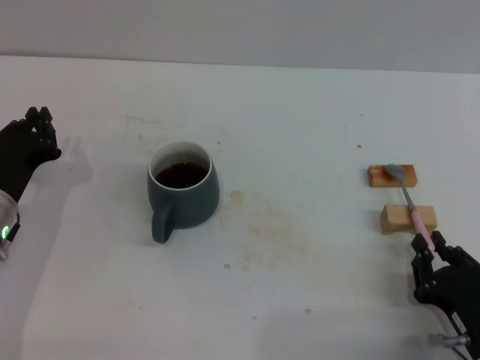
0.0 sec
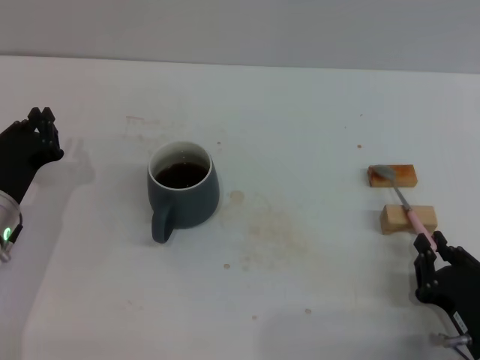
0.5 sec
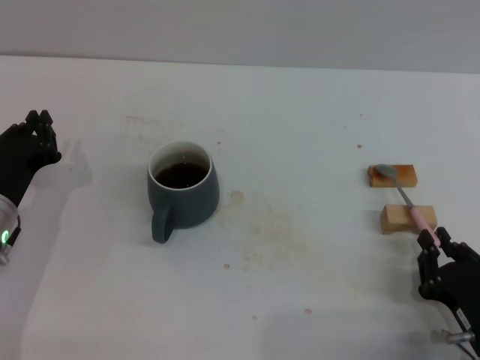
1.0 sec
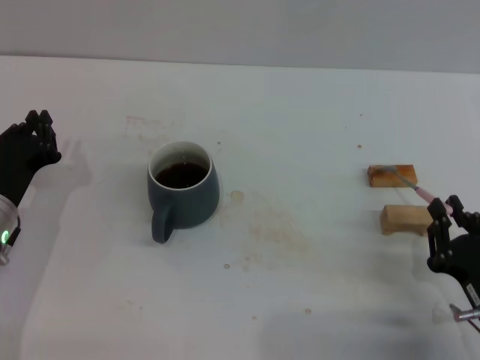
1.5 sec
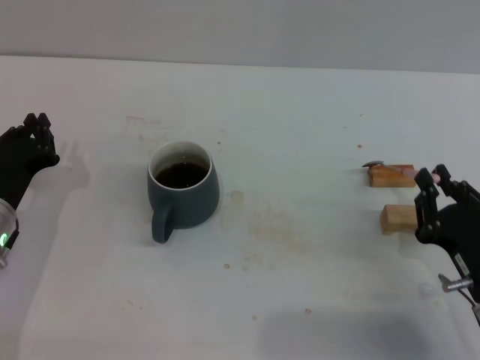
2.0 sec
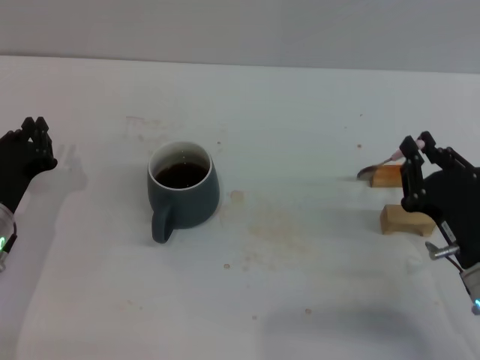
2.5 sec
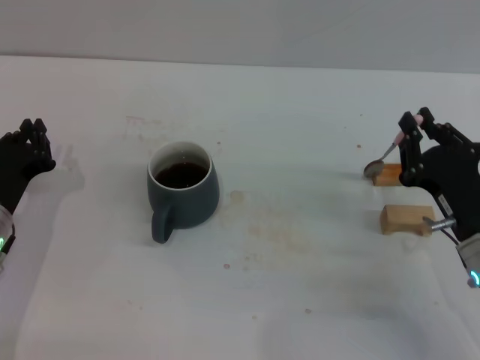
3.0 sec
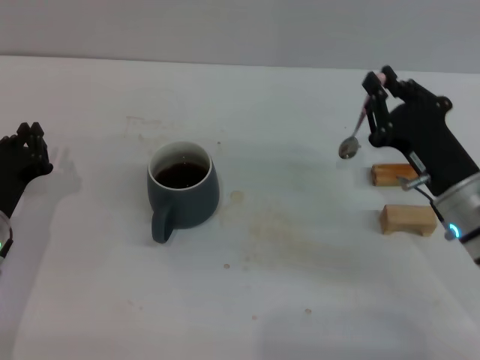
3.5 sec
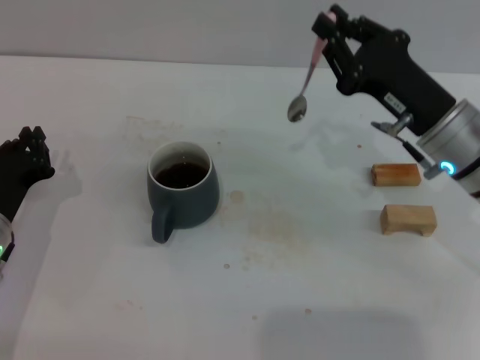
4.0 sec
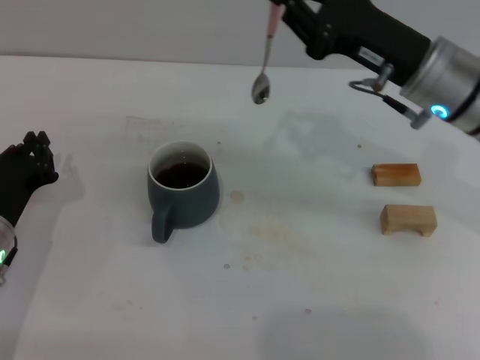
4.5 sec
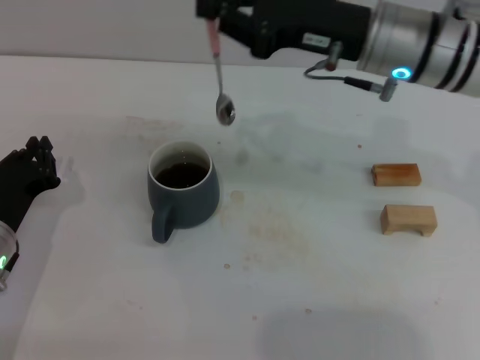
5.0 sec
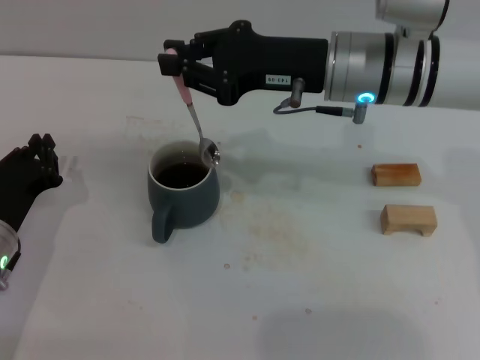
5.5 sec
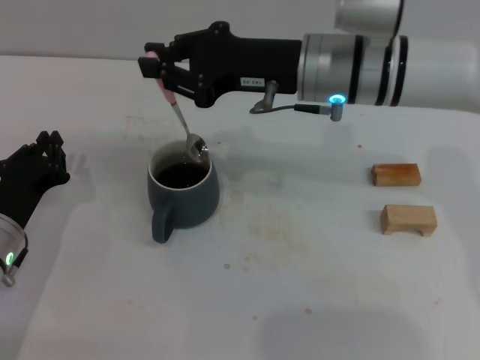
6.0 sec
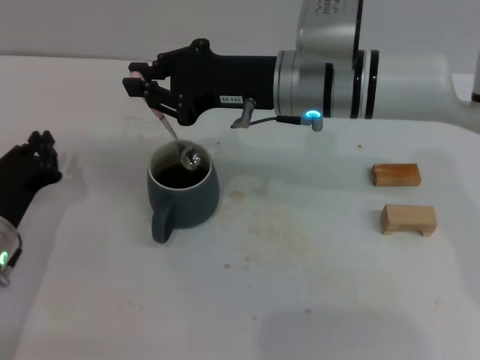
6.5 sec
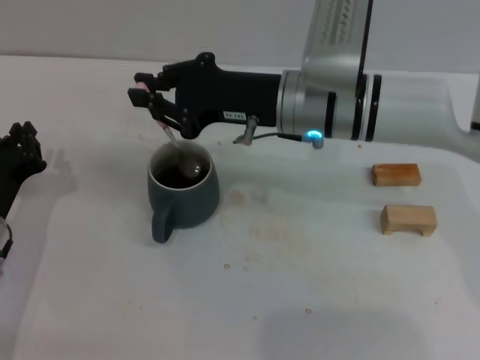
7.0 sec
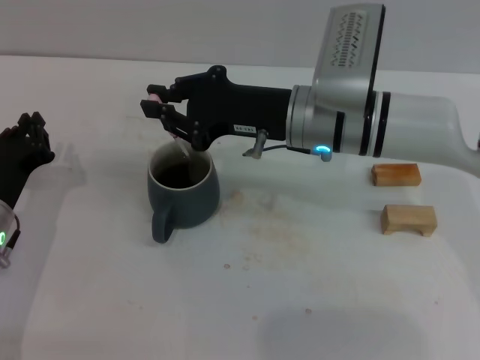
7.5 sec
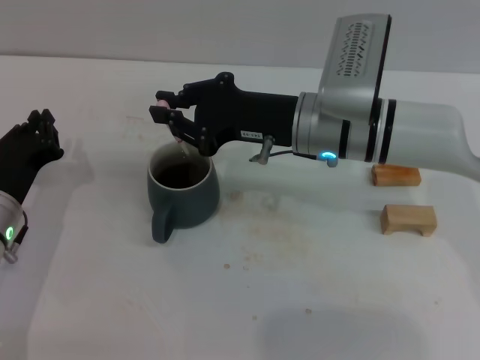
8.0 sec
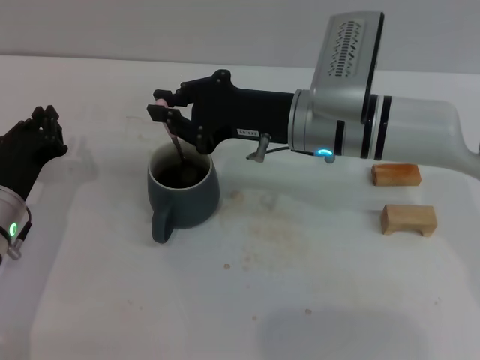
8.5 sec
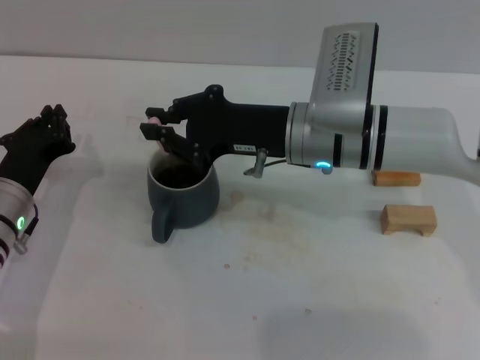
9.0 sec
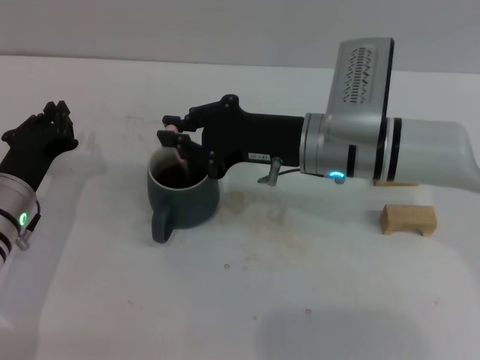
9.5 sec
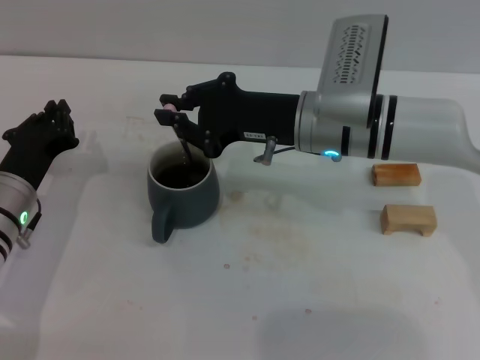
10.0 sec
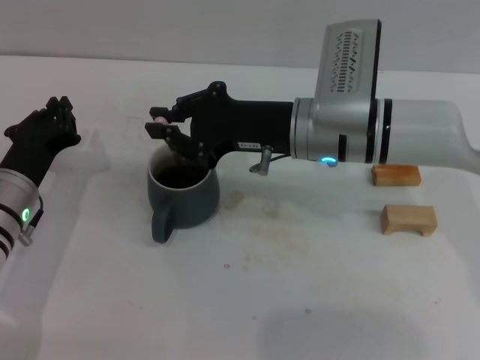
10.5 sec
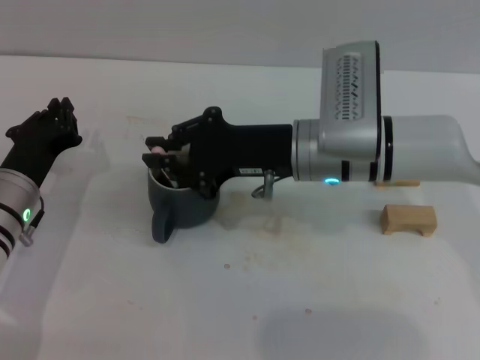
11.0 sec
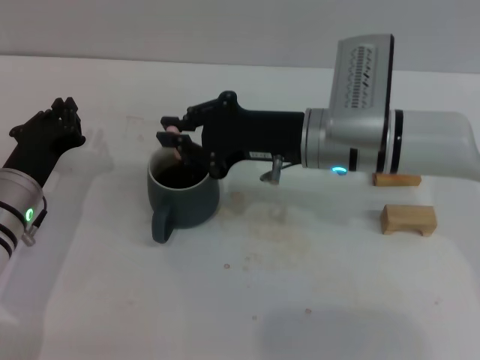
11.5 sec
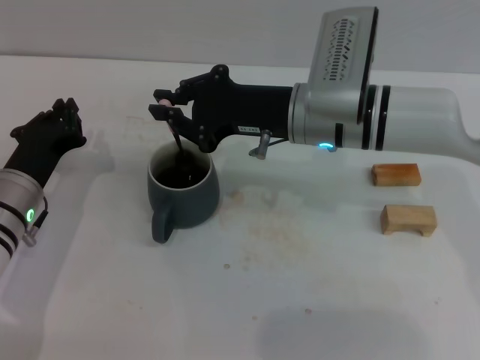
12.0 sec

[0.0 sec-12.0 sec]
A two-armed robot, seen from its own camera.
Task of the whole recording: Move the grey cup to the center, lift the pink spoon, stir it three times in the cup, and put the spoon into the cup.
Step, 0.0 sec to 3.5 sec: Pick up the spoon with the right gripper.
0.0 sec to 2.0 sec: The right gripper ends up about 5 cm from where it was.
2.0 sec to 4.0 sec: The right gripper moves forward and upward, roughly 15 cm.
4.0 sec to 6.0 sec: The right gripper shifts some 15 cm to the left, upward and forward.
6.0 sec to 8.0 sec: The right gripper shifts by about 5 cm.
8.0 sec to 12.0 sec: The grippers make only small movements.

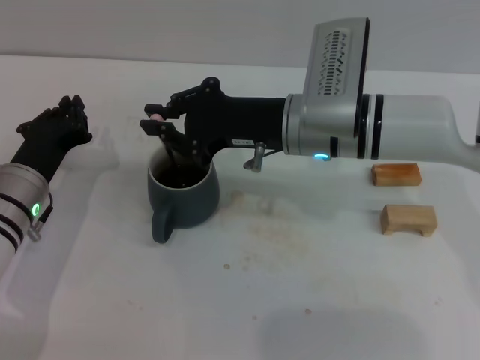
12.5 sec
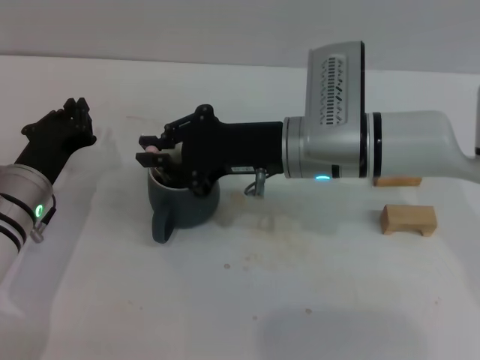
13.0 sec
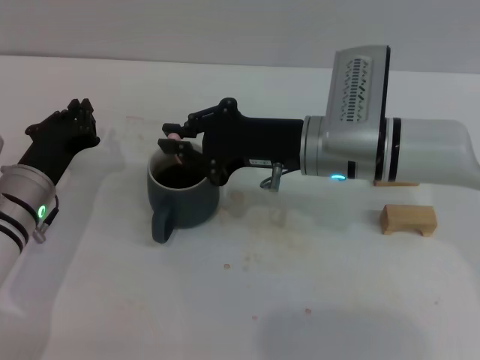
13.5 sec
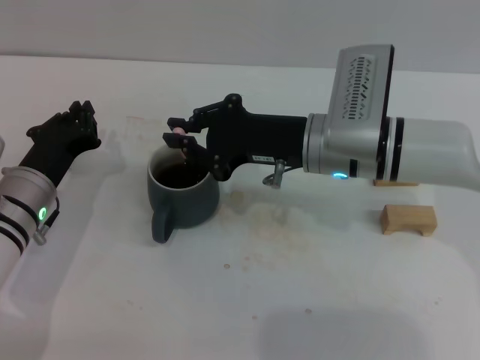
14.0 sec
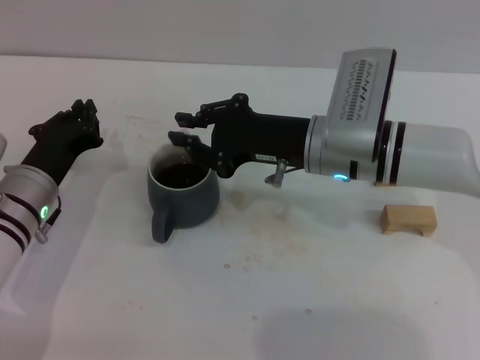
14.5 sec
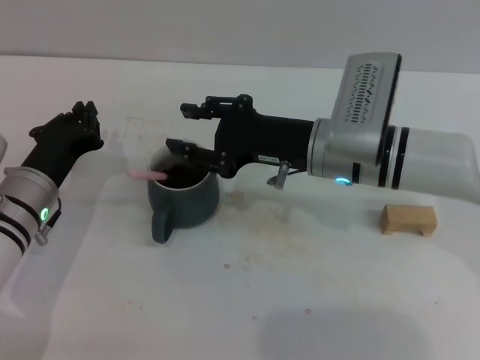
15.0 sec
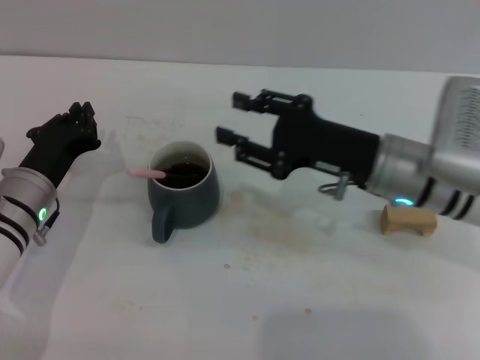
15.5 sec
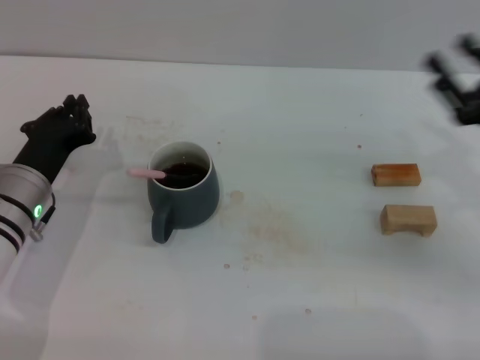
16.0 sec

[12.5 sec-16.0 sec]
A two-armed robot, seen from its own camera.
Task of the whole recording: Move the grey cup to the center, lift the pink spoon, stir it three times in the cup, and put the spoon into the cup.
Step, 12.5 sec to 14.5 sec: Stir the coffee in the cup with the right gripper.
12.5 sec to 14.5 sec: The grippers move only a little.
14.5 sec to 16.0 sec: The right gripper shifts about 20 cm to the right, and opens its fingers.

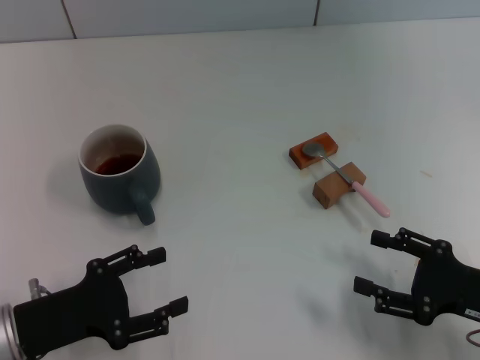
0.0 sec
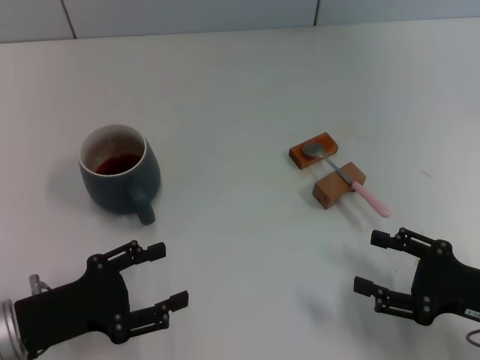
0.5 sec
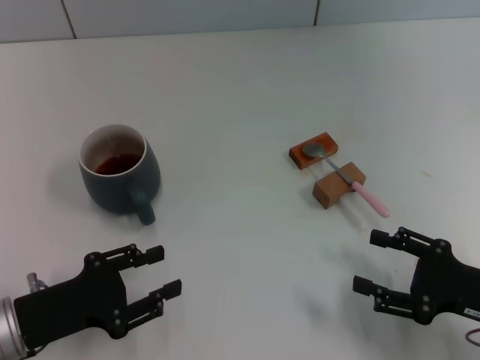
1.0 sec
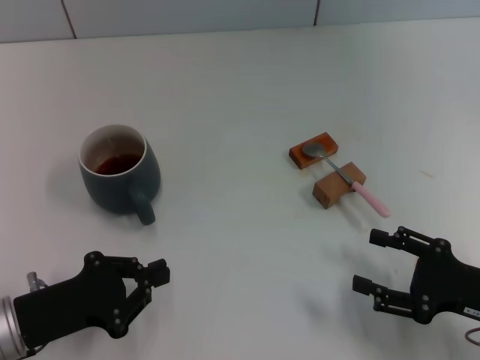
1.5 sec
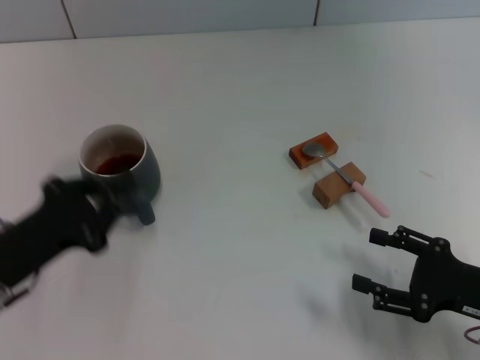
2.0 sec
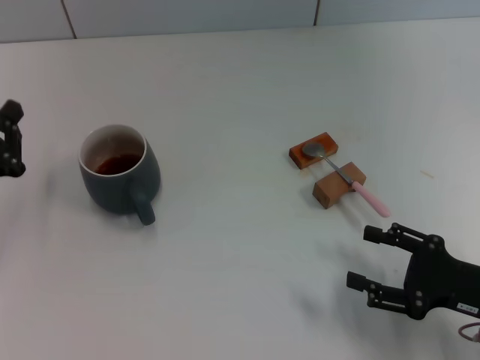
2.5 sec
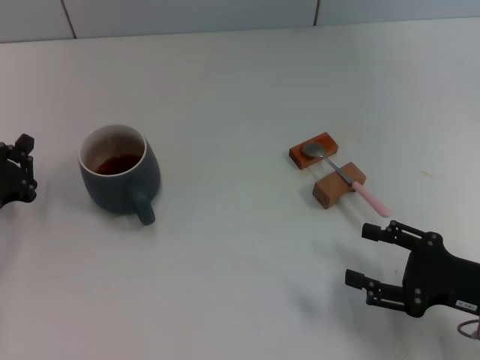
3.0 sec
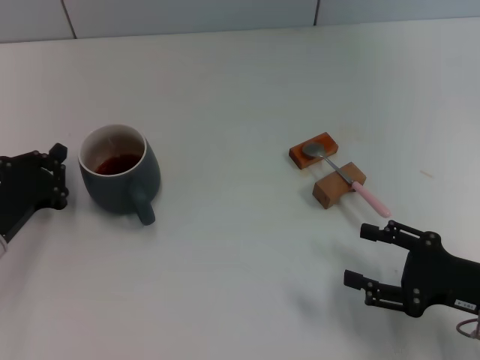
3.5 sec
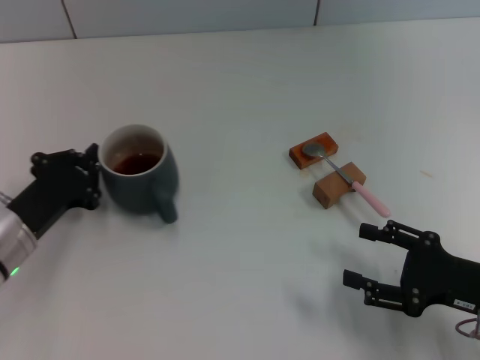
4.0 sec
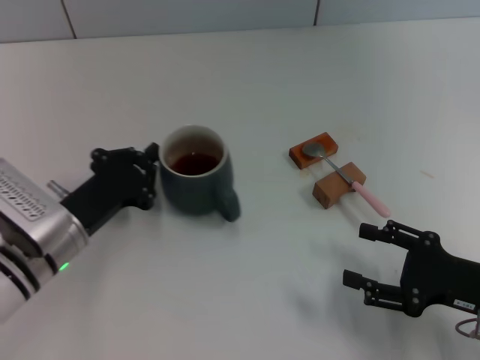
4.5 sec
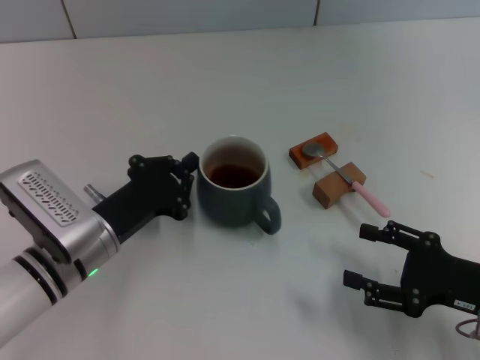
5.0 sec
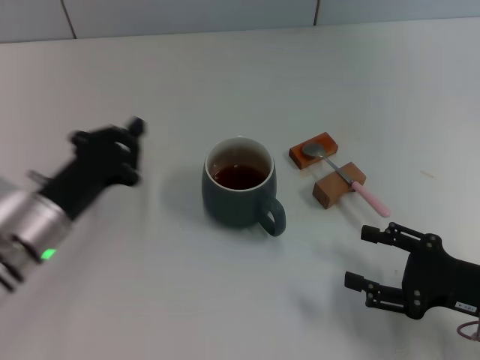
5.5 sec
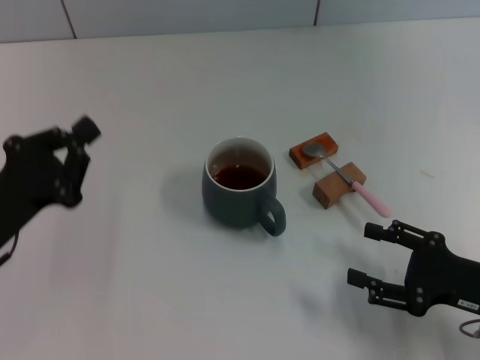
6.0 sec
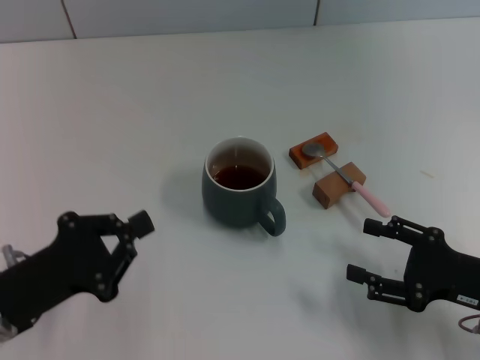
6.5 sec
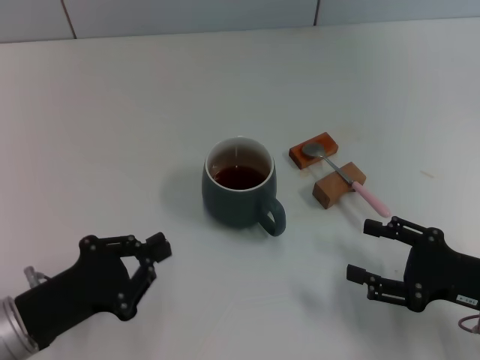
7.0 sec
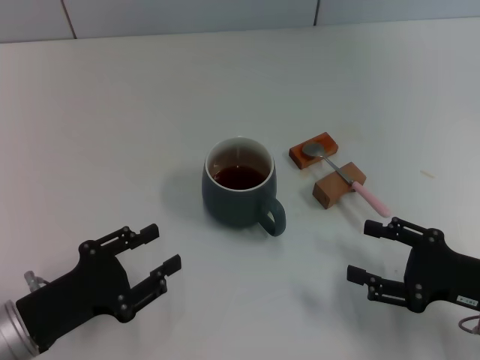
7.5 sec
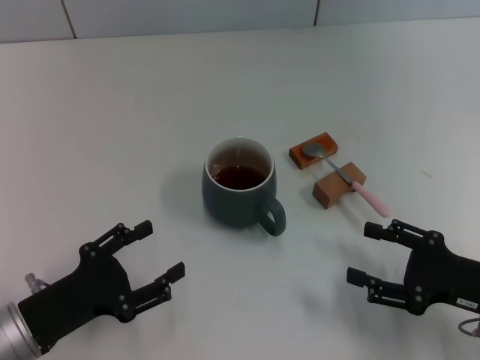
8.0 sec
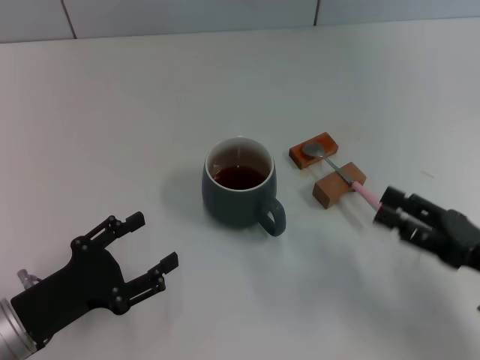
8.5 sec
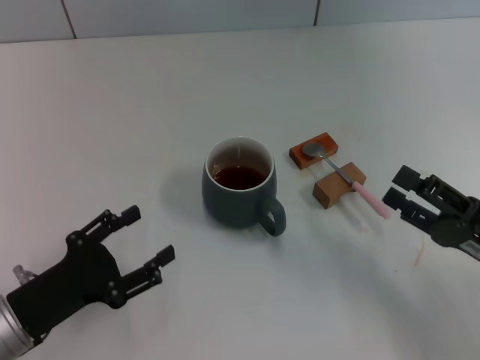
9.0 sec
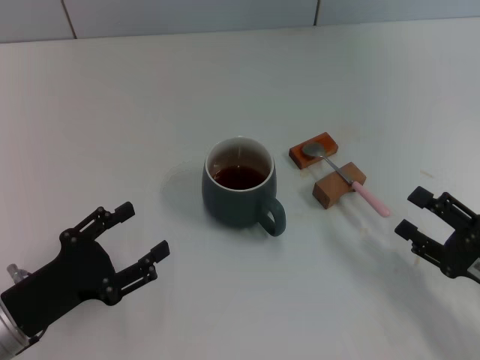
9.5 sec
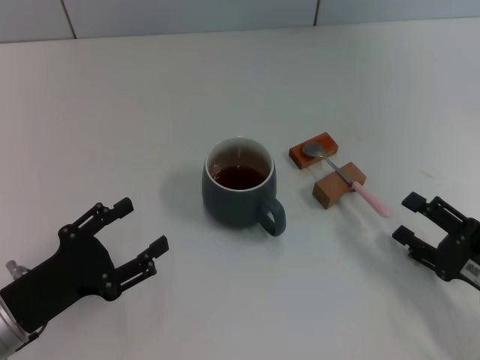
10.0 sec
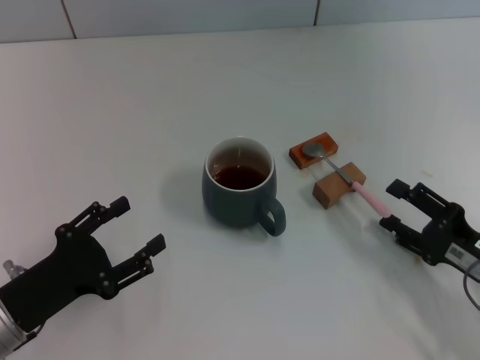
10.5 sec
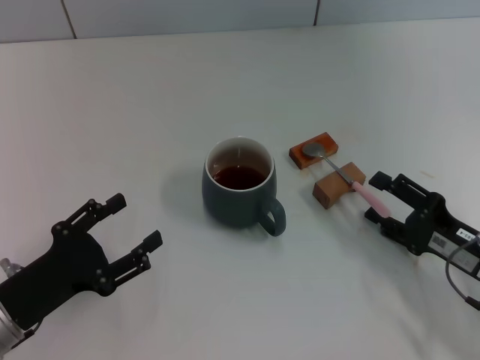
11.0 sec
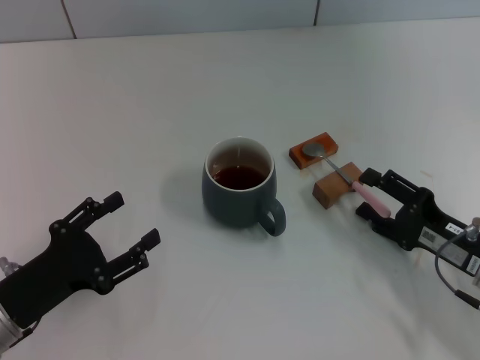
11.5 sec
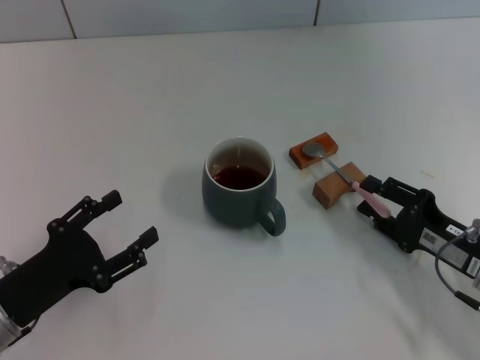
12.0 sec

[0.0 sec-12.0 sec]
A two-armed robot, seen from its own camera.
Task of the whole recording: Move the grey cup to the center, lift the pink spoon, stir it three times in the cup, and put the spoon into the cup.
Step, 0.0 sec to 5.0 sec: Move the cup with coffee to the center of view with the left gripper.
0.0 sec to 2.0 sec: The left gripper closes its fingers.
2.0 sec to 4.0 sec: The left gripper goes some 5 cm forward.
4.0 sec to 6.0 sec: The left gripper travels to the right and back again, approximately 10 cm each way.
6.0 sec to 8.0 sec: The left gripper changes place by about 5 cm, and opens up.
10.0 sec to 12.0 sec: The right gripper changes place by some 5 cm.
